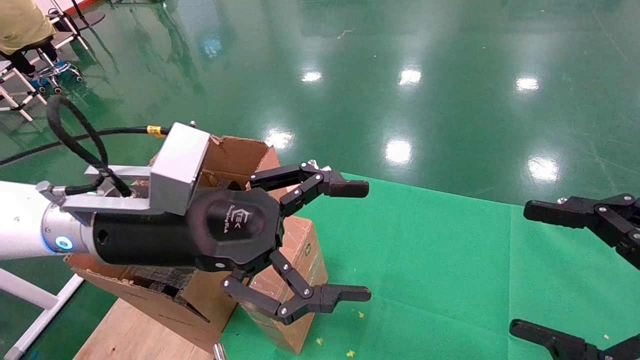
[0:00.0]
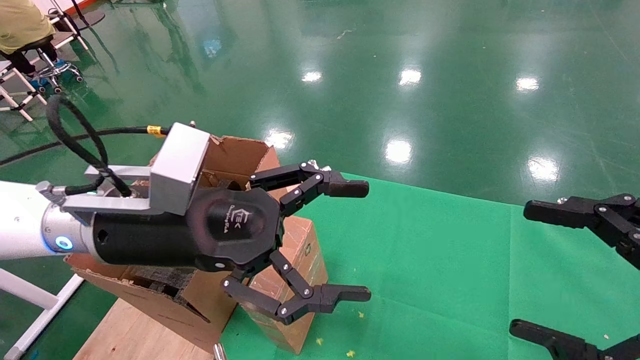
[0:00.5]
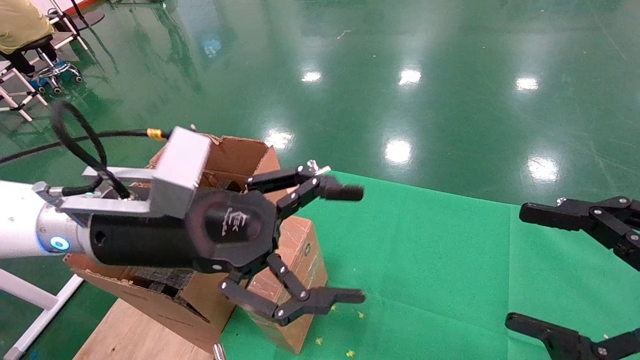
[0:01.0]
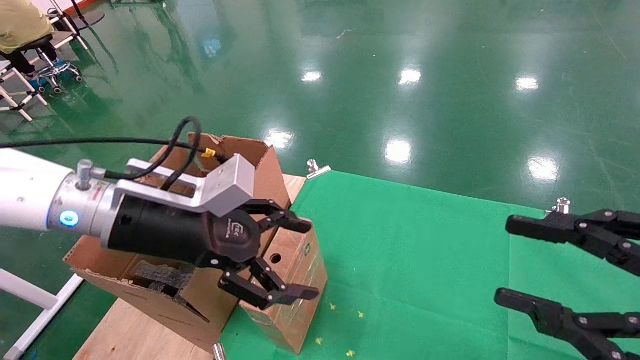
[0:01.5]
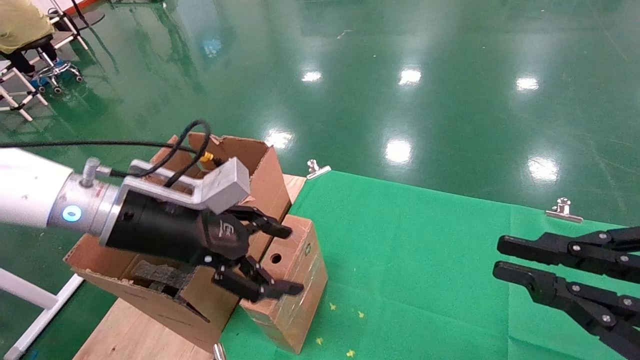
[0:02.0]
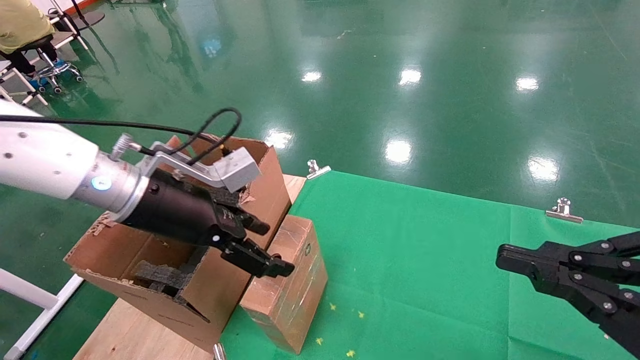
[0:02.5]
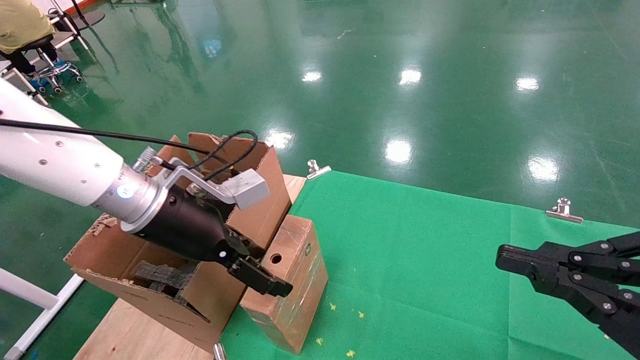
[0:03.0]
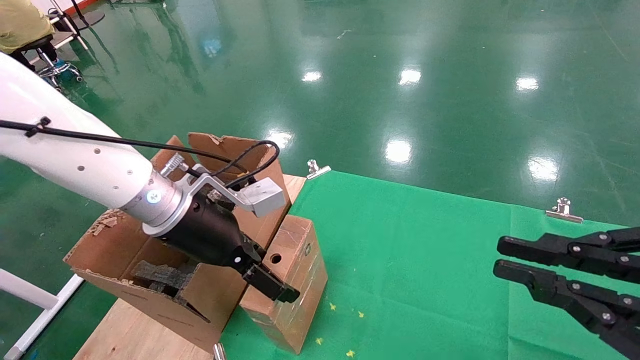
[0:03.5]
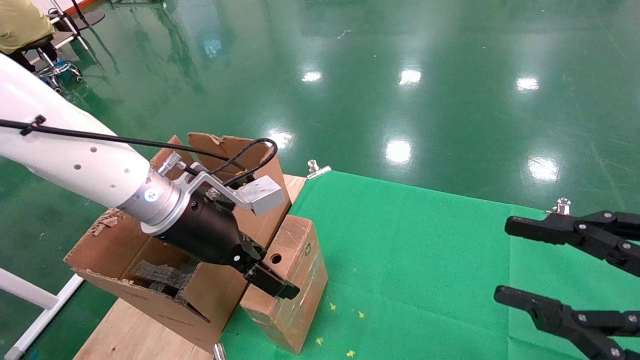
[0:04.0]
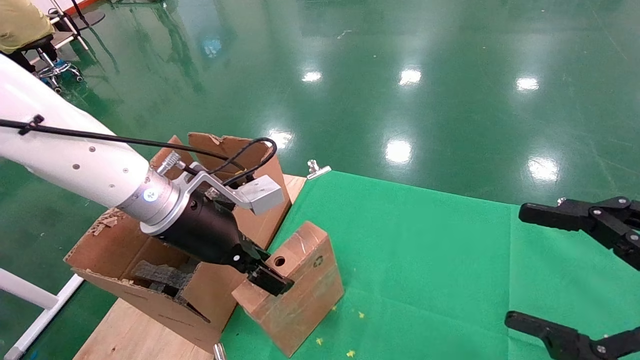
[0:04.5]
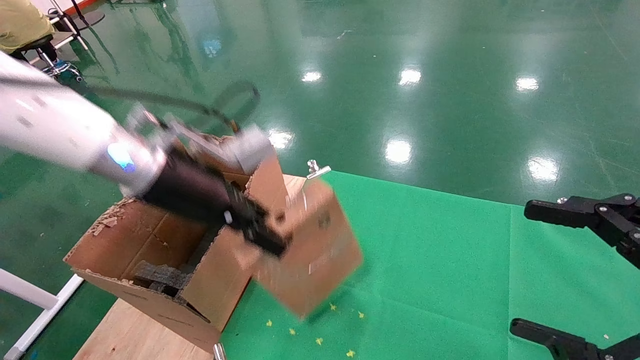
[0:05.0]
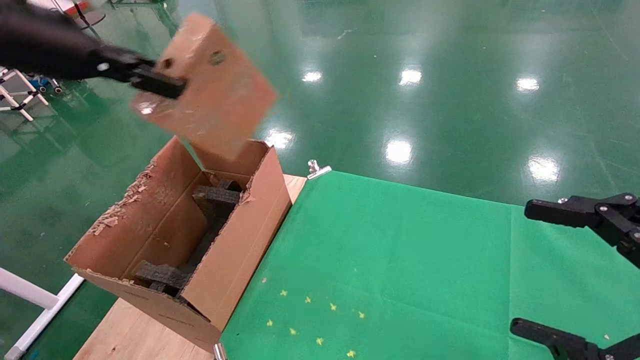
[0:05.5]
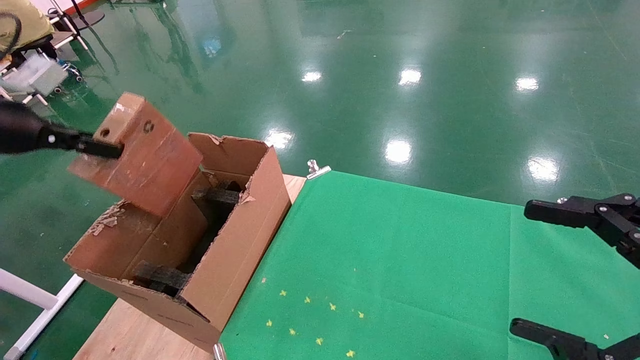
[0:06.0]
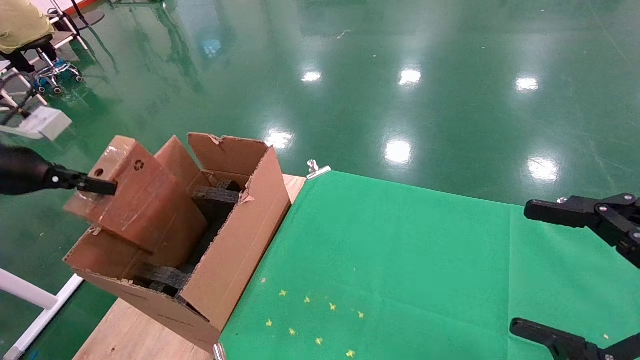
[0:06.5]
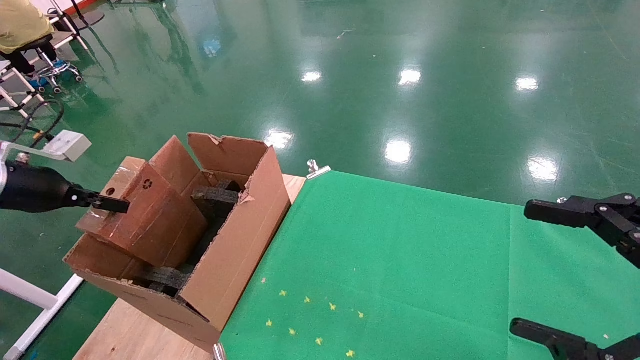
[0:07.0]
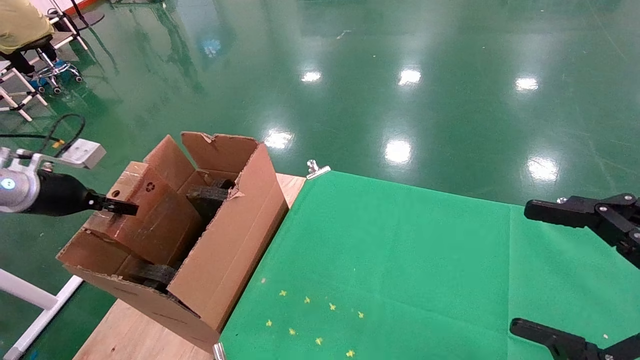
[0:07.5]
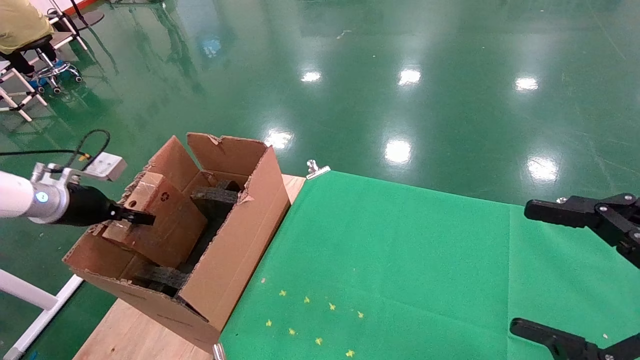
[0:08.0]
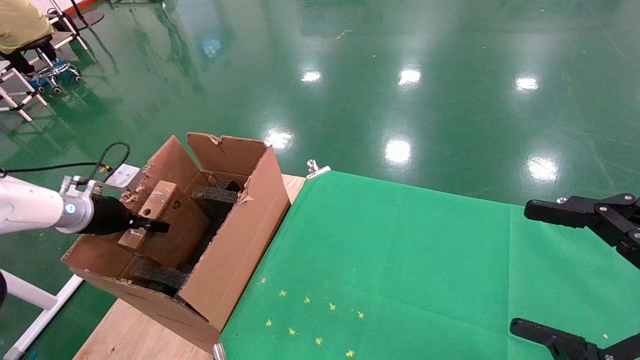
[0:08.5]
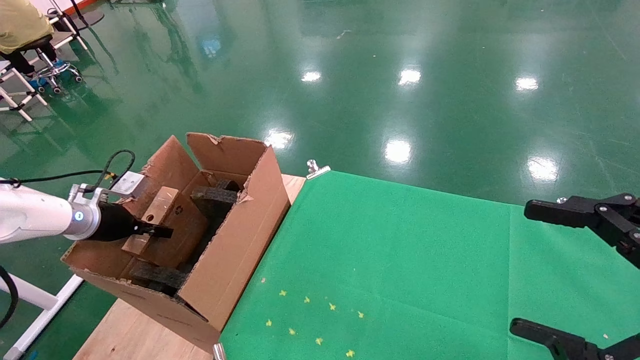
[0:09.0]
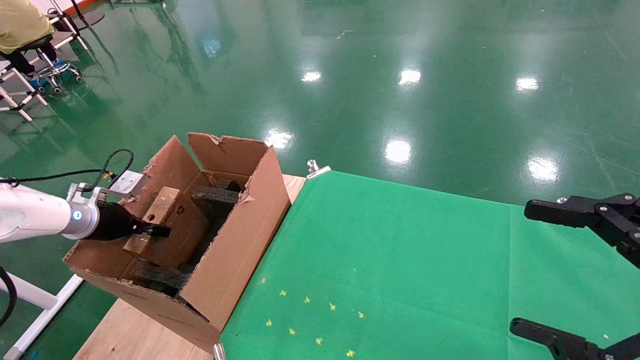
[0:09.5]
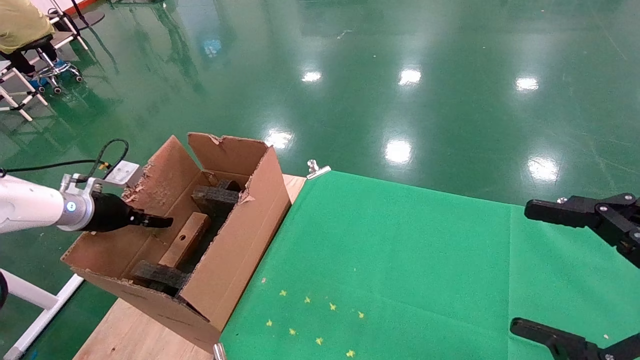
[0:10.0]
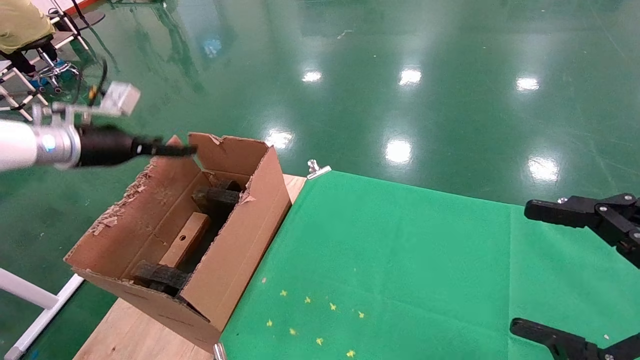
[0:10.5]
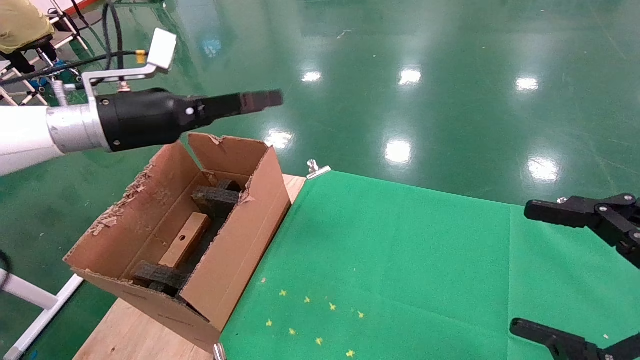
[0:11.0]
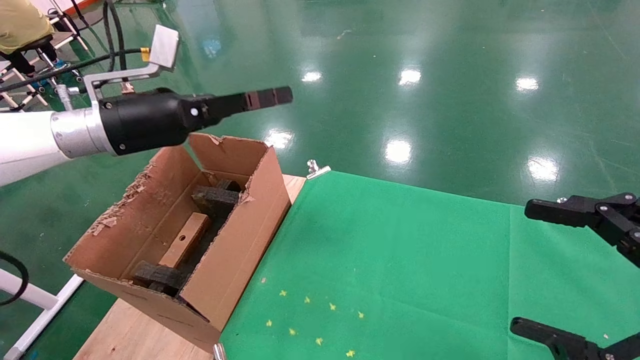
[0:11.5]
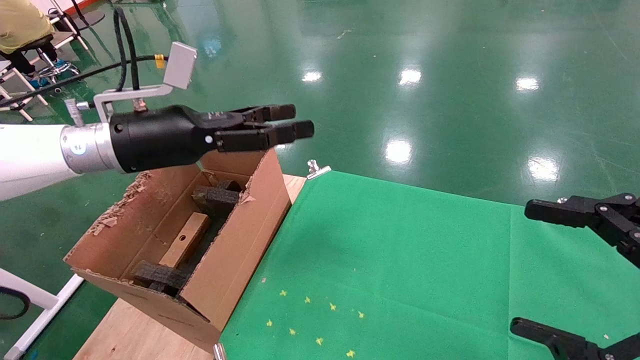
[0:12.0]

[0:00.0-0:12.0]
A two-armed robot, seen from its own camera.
Task of the whole recording: using a robotic arm to pick up a cardboard box and palace it the carton.
Step, 0:01.5 to 0:04.5: Pick up the mouse and the power cord paper box.
Step, 0:05.0 to 0:10.0: Place the mouse and the power cord paper box into the container.
0:00.0 to 0:02.0: The right gripper closes. The left gripper moves some 5 cm.
0:02.0 to 0:04.0: The left gripper moves some 5 cm.
0:04.0 to 0:06.0: The right gripper opens up. Meanwhile the left gripper moves to the left, approximately 30 cm, and closes its fingers.
0:06.0 to 0:08.0: The left gripper heads downward and forward, covering about 20 cm.
0:08.0 to 0:10.0: The left gripper opens.
0:10.0 to 0:12.0: The left gripper travels to the right and upward by roughly 25 cm, and opens its fingers.

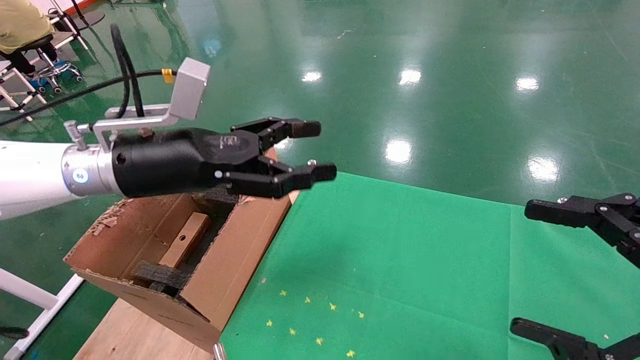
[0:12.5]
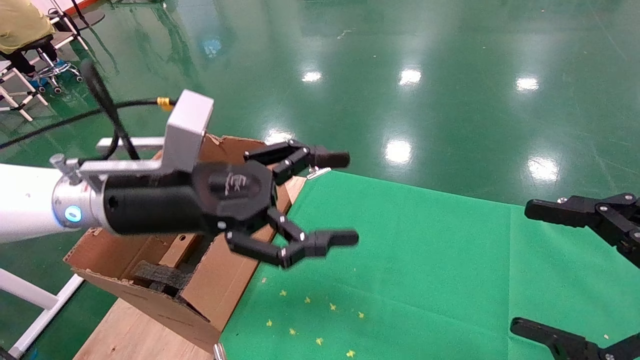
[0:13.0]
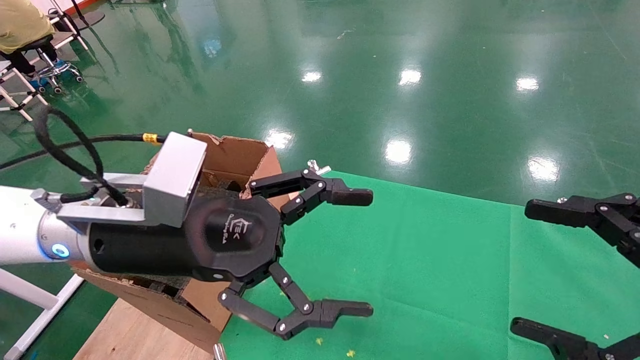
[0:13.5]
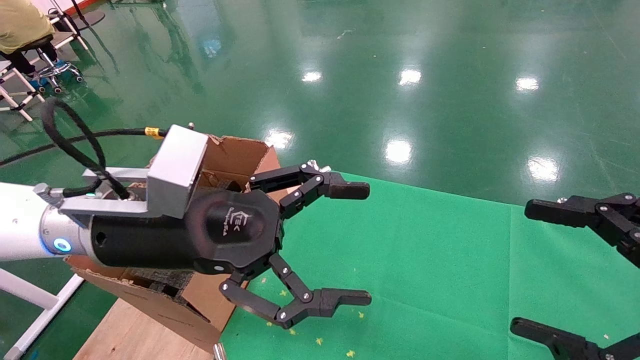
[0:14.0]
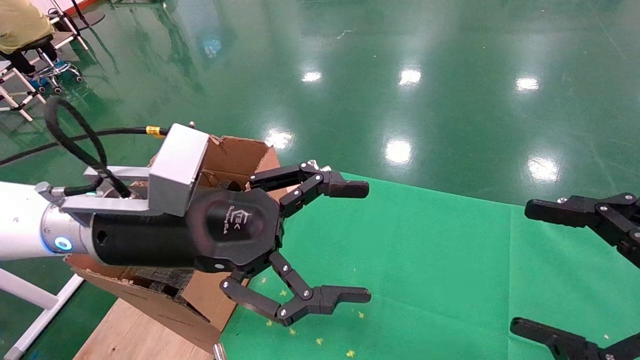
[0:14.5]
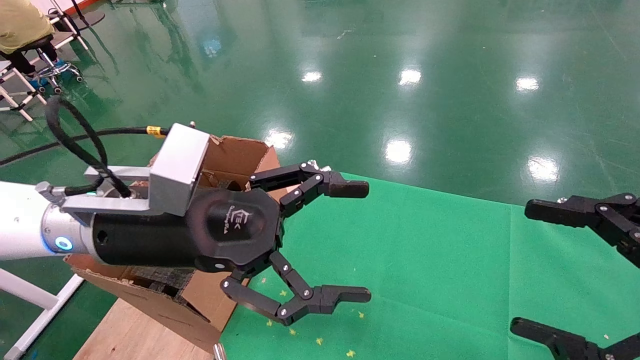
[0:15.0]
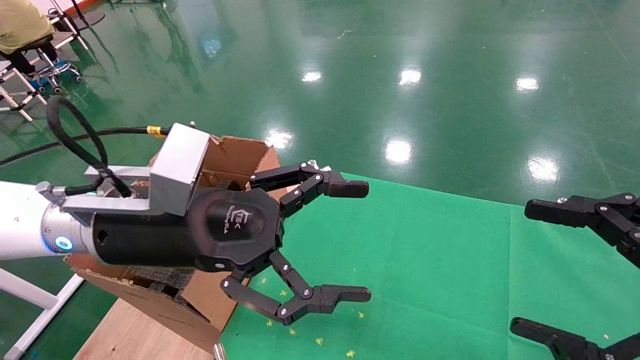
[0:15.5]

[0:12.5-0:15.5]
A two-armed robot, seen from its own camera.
Task of the whole recording: using a robotic arm to pick up a cardboard box and palace it the carton.
0:12.5 to 0:14.0: The left gripper shifts roughly 10 cm backward and to the right.
0:14.0 to 0:15.5: The two grippers keep their place.
